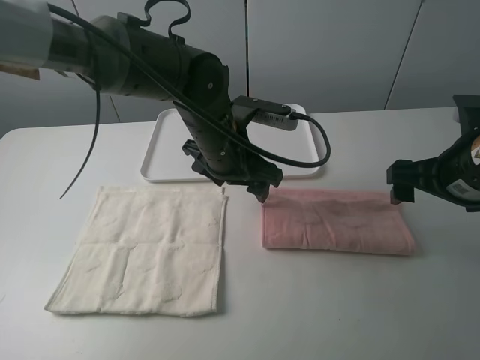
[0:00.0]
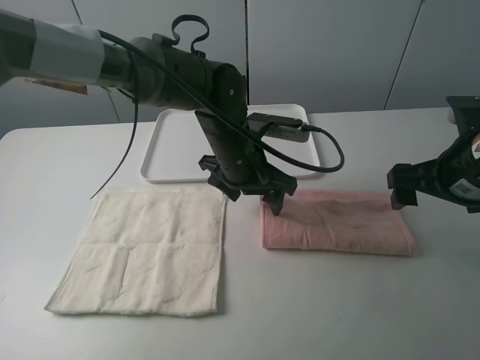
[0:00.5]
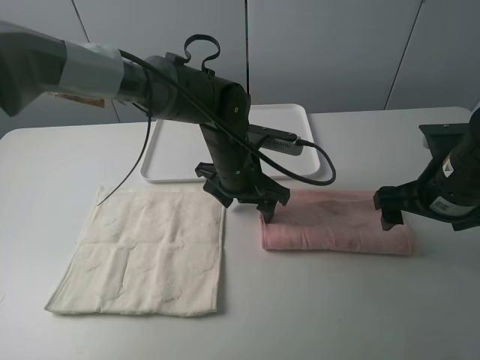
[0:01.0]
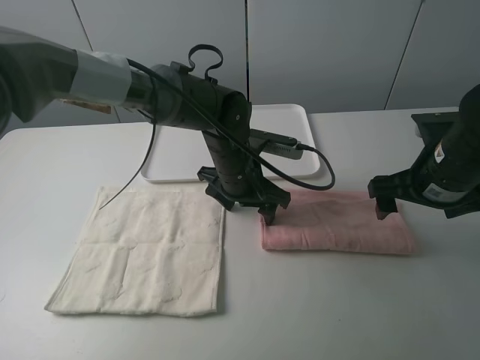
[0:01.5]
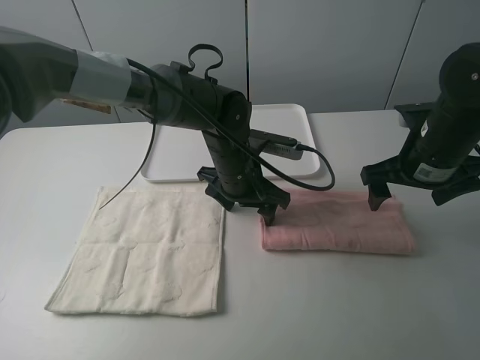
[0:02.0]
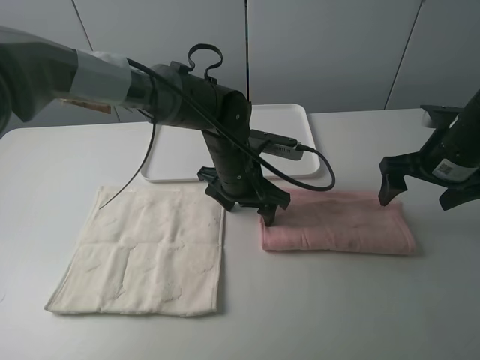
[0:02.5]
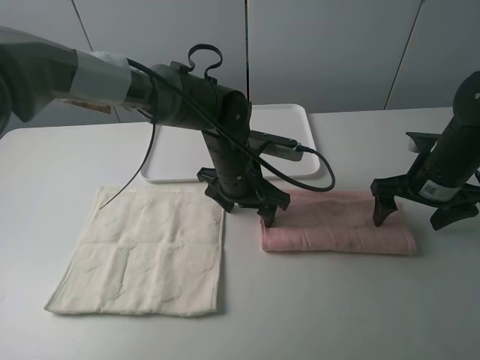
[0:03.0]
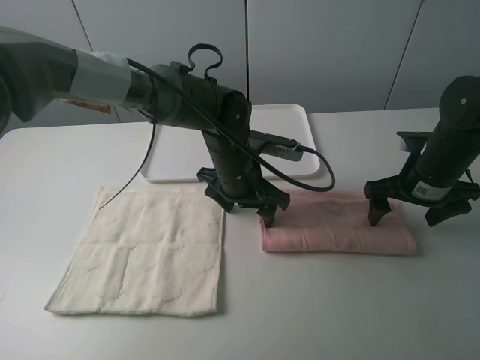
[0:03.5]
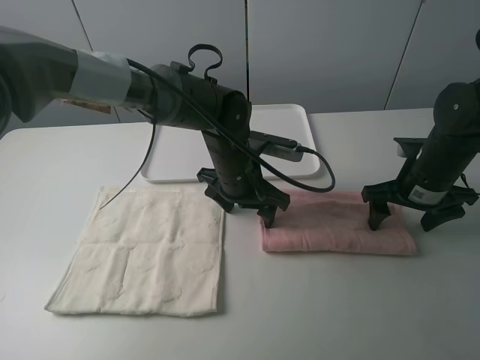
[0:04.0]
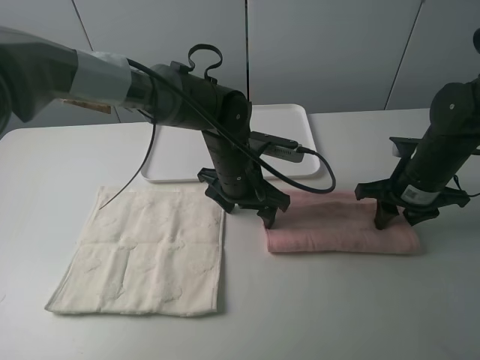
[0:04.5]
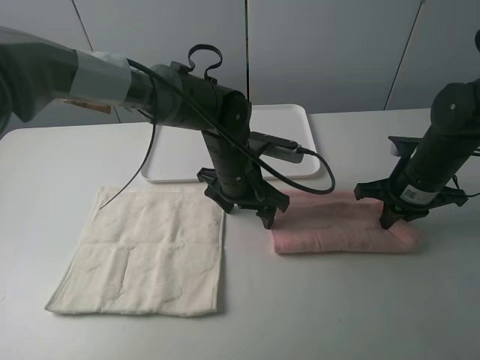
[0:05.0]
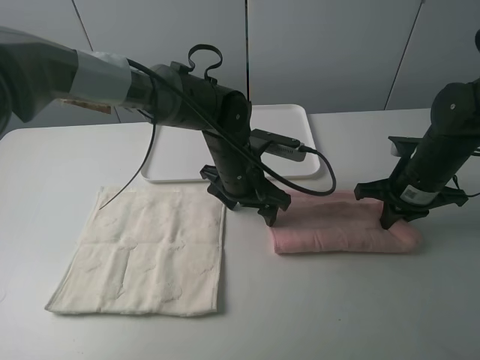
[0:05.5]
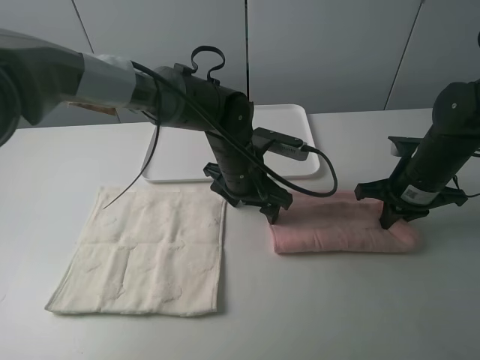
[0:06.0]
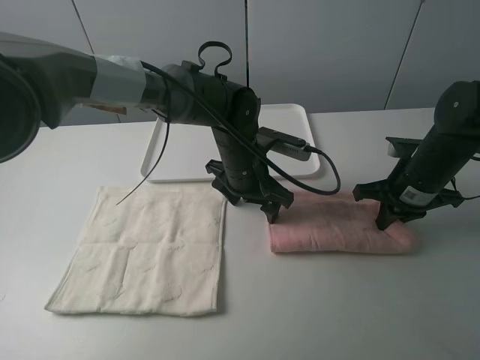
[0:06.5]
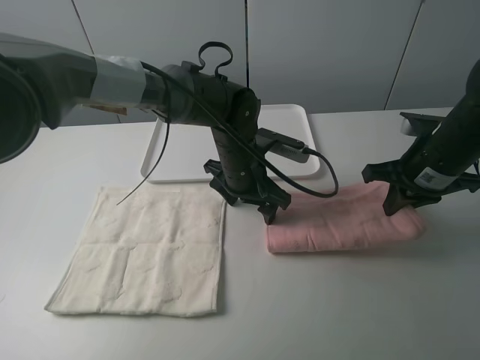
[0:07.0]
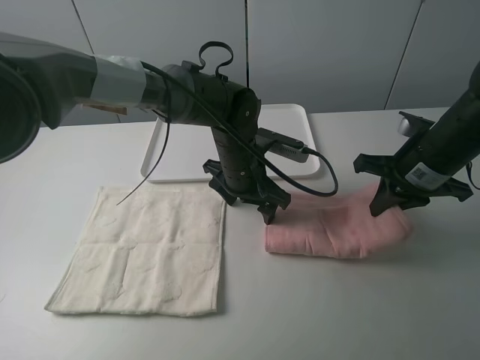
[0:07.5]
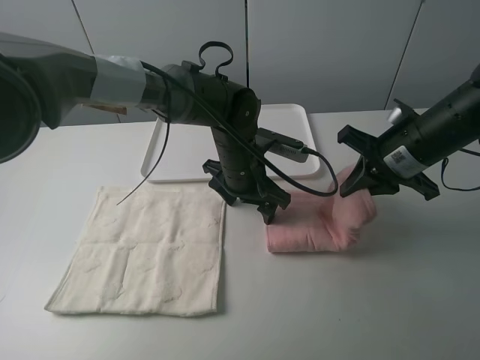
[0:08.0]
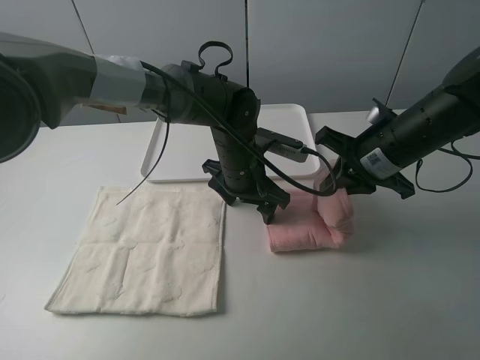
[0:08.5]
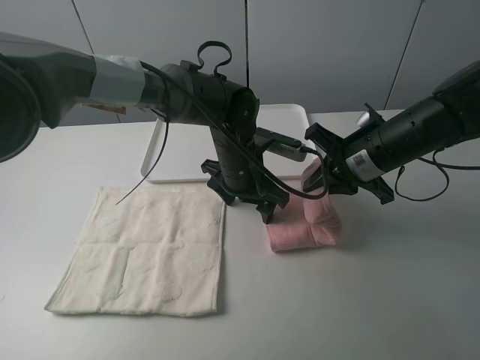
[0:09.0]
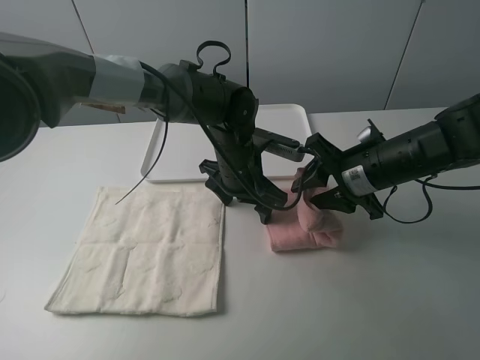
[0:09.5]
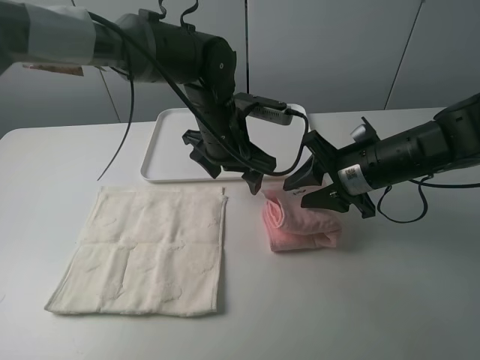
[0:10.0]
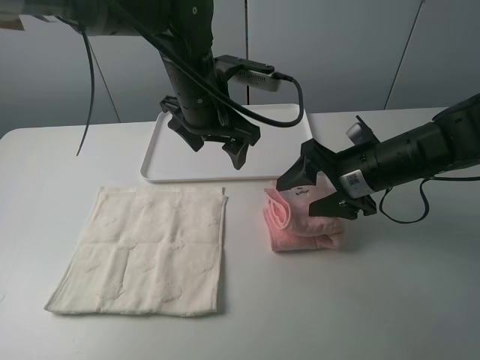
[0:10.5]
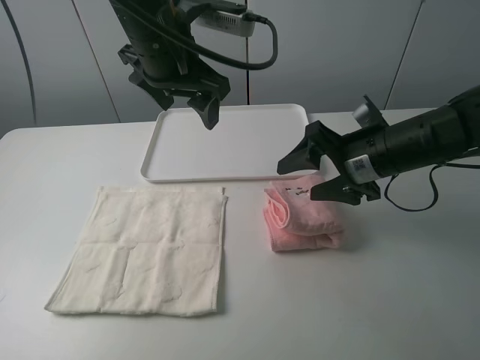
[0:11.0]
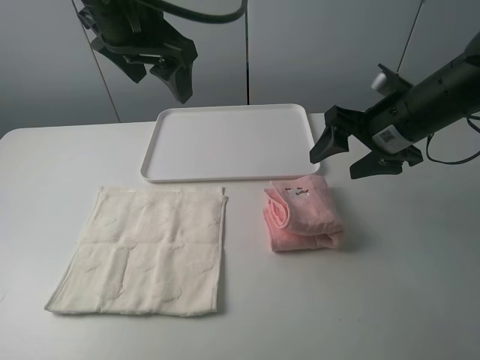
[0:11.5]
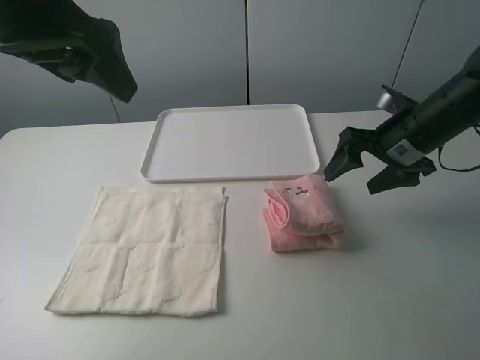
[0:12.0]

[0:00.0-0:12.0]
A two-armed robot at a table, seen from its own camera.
Task of the whole recording: fold one of the towels by two grippers and place it on the tray,then fold another towel by two grippers and place it on the folded towel.
Step, 0:00.0 to 0:01.0: Press the pink towel with the left gripper.
Step, 0:01.5 to 0:04.5: Grasp the pink towel with the right gripper.
Step, 0:05.0 to 0:10.0: Fold the pink towel from right to left with right gripper.
0:00.0 to 0:02.0: The left gripper is displaced downward by about 5 cm, while the right gripper is displaced forward by approximately 5 cm.
0:02.0 to 0:04.0: The right gripper goes roughly 5 cm downward.
0:04.0 to 0:06.0: The right gripper closes.
0:06.0 to 0:08.0: The right gripper shifts approximately 5 cm upward.
0:08.0 to 0:10.0: The left gripper heads upward, covering approximately 5 cm. The right gripper changes place by about 5 cm, and opens up.
0:10.0 to 0:12.0: The right gripper heads to the right, covering some 5 cm, and opens; the left gripper heads upward, to the left and backward, covering some 30 cm.

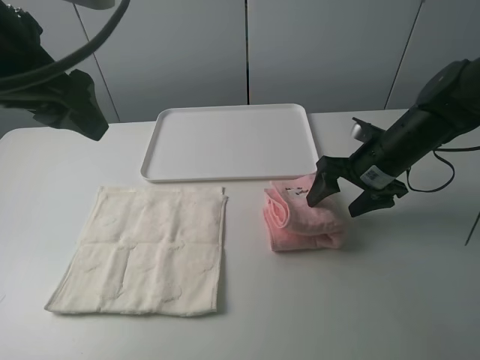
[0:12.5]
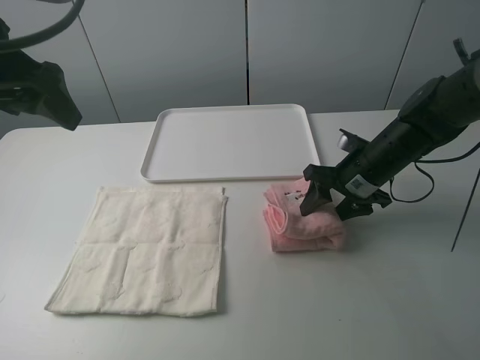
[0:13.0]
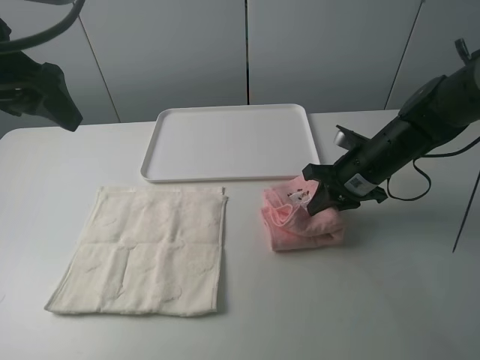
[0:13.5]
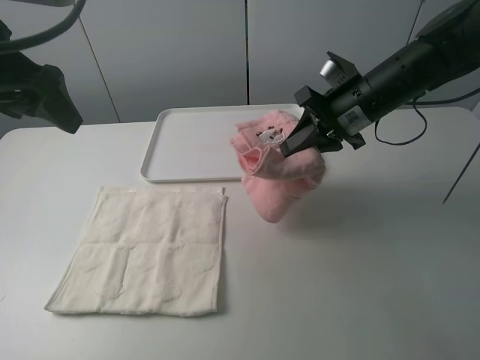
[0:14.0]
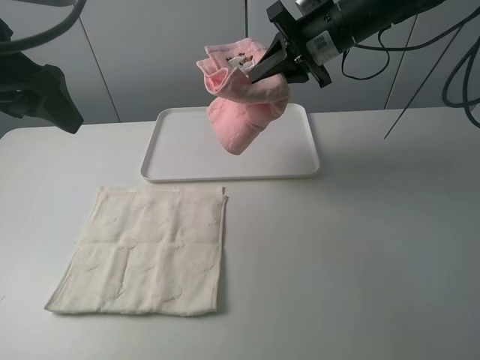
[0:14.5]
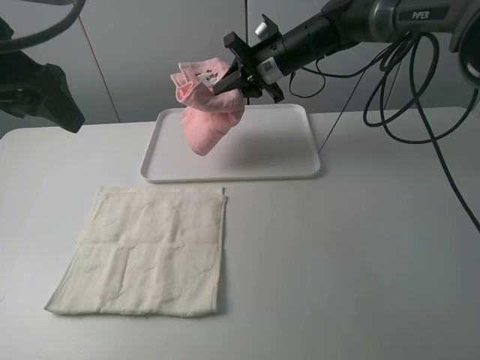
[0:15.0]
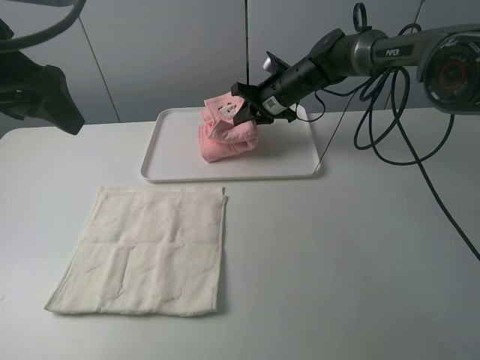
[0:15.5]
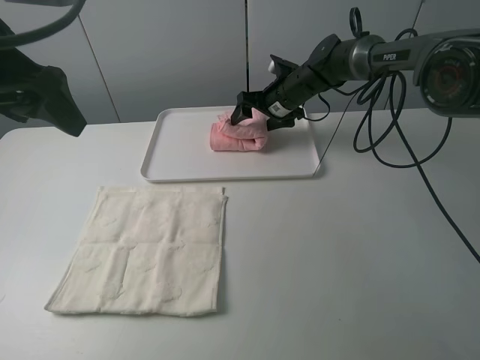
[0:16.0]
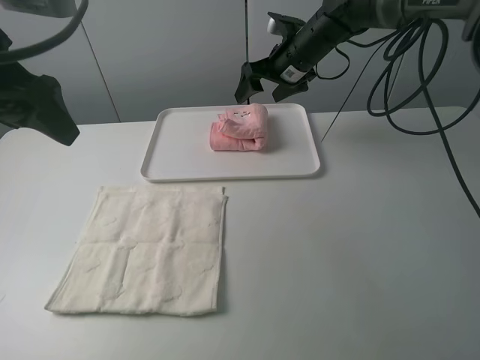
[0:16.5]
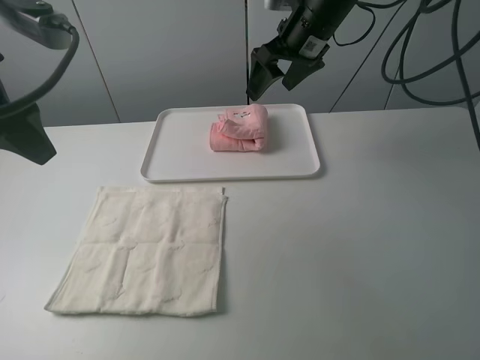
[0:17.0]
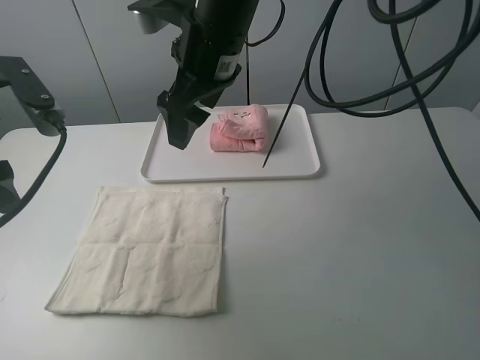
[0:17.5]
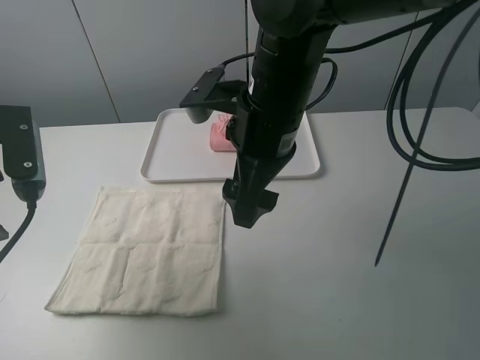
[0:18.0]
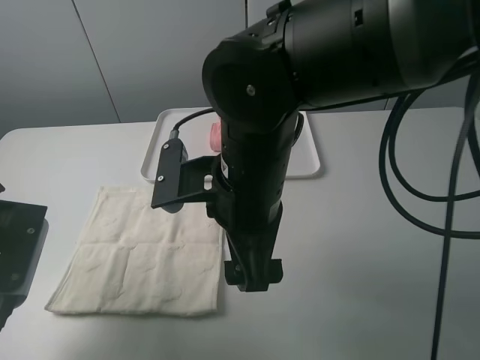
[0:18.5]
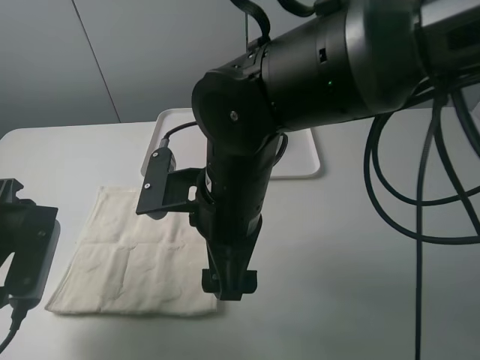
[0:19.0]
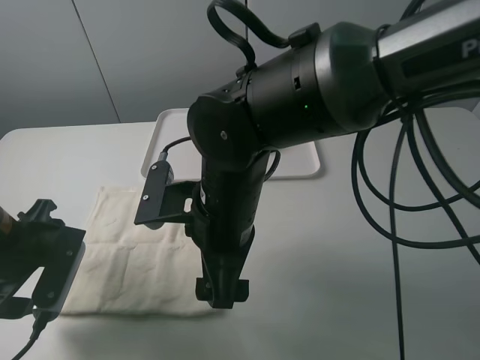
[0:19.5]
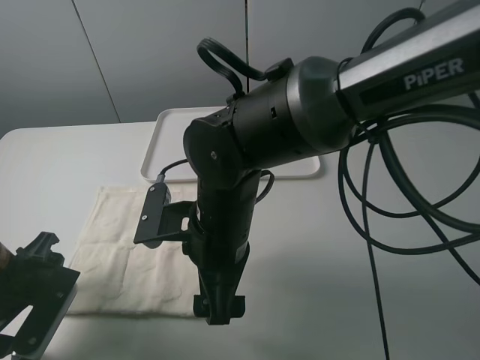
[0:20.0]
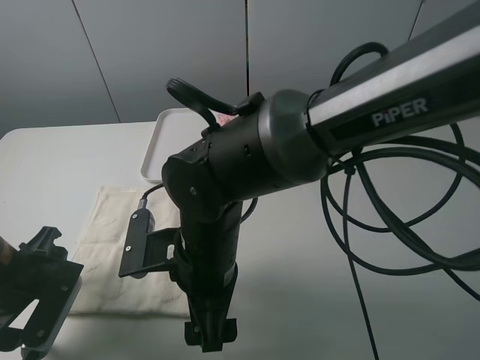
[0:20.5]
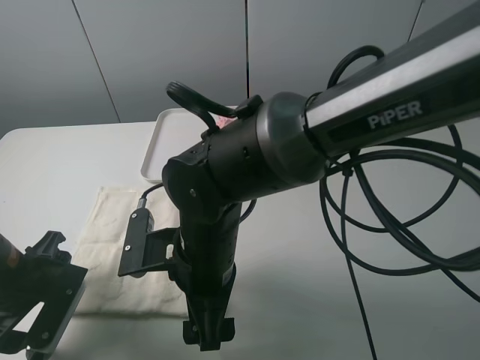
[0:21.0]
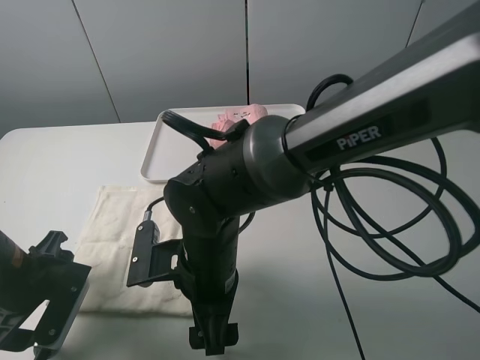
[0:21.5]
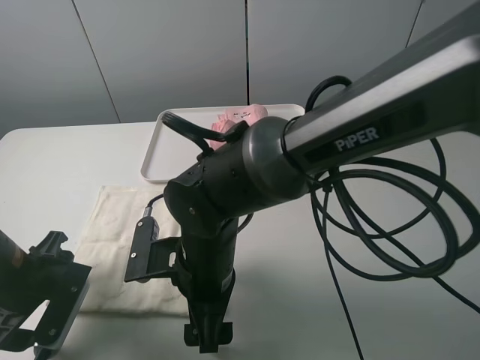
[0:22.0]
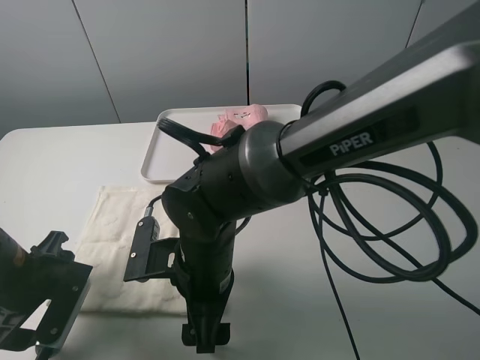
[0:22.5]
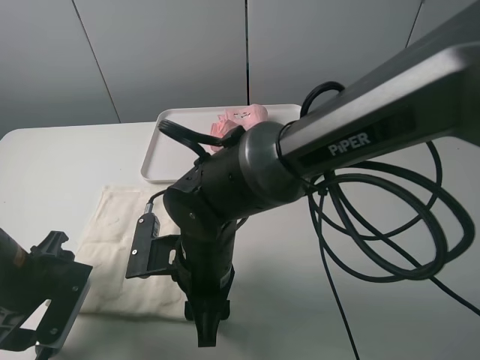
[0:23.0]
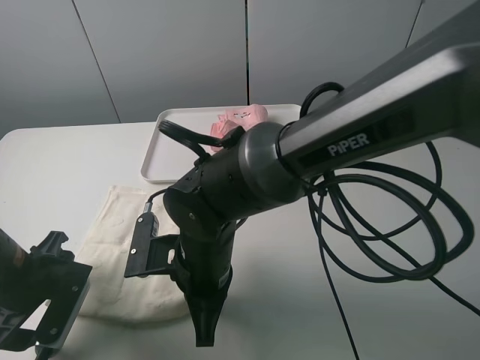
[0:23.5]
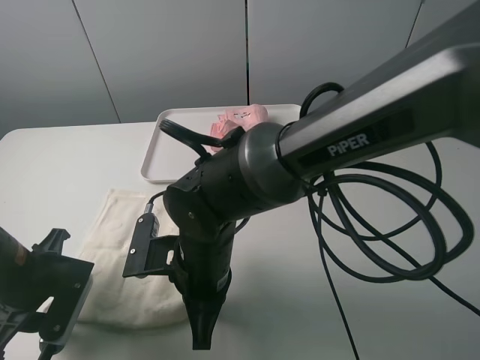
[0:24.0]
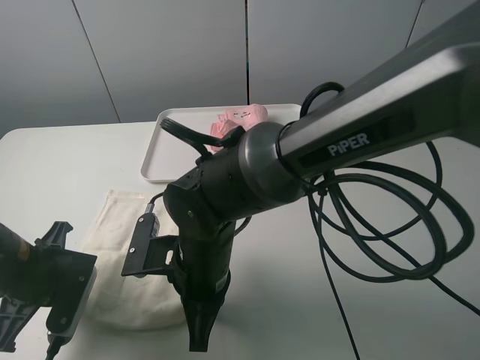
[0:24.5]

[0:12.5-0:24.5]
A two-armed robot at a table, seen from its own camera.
Task of the whole recording: fold one of the towels by two grippers and place it on the tray,then fold another towel by two grippers and place it on the folded towel.
Step, 0:13.5 to 0:16.0: Move the pink towel to the plate with the right gripper.
Step, 0:16.5 to 0:23.5: Grasp the white towel with the left gripper.
0:12.5 to 0:14.5: The right gripper travels upward, forward and to the left by roughly 20 cm, and closes.
0:14.5 to 0:16.5: The right gripper heads forward, covering approximately 5 cm, travels downward and back again, approximately 15 cm each way, and opens up.
0:16.5 to 0:18.5: The right gripper heads backward, covering about 30 cm. Meanwhile the left gripper heads downward and backward, covering approximately 15 cm.
0:18.5 to 0:20.5: The grippers both shift downward by about 10 cm.
0:22.5 to 0:24.5: The left gripper closes. The right gripper closes its fingers.

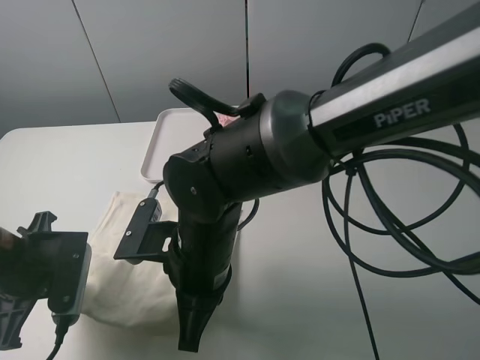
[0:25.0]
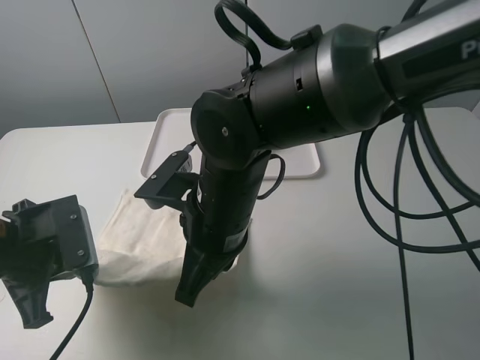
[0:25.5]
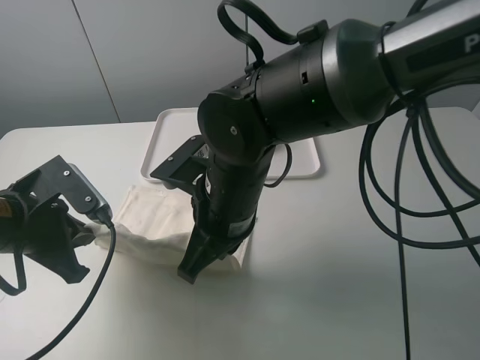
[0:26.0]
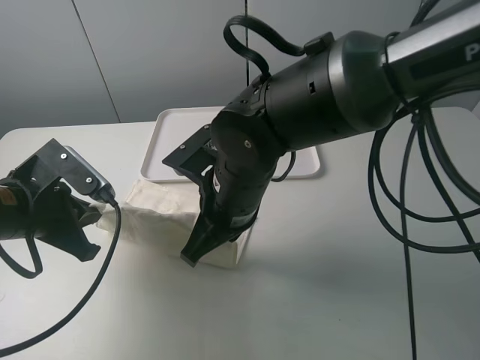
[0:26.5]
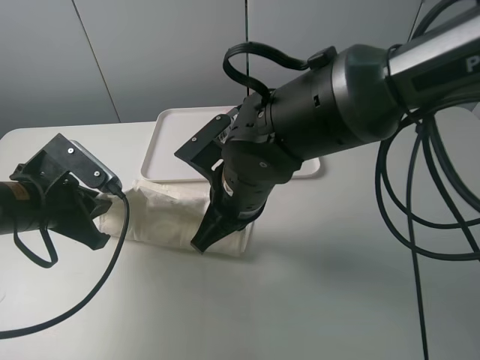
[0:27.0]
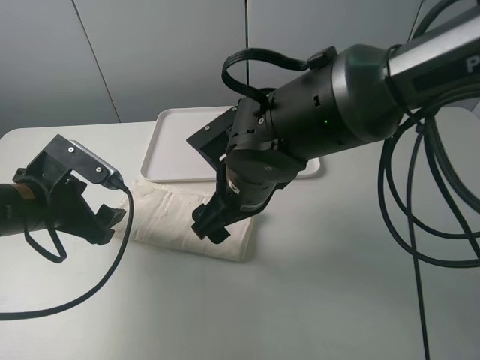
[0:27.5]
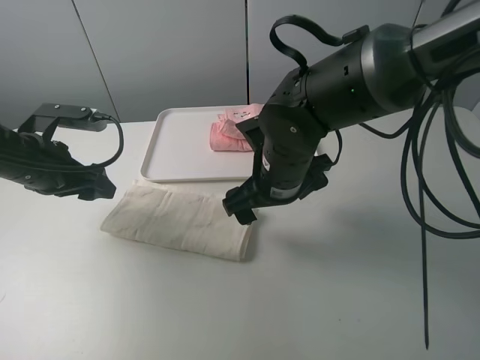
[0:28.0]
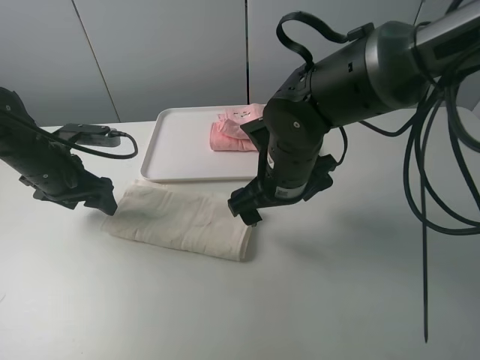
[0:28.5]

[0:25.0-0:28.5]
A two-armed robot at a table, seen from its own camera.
Task of the whole recording: fold one of the towels by two grippers and place it on the tray,then fold another towel by two grippers and place it on the folded towel.
Step, 0:25.0 to 0:27.0: Fold the white towel upwards with the left gripper.
0:25.0 to 0:27.0: The right gripper is displaced forward by roughly 5 cm. The left gripper ends up roughly 5 cm from where it was.
0:27.0 to 0:28.5: The left gripper goes some 10 cm forward, and opens. The right gripper heads to the right, covering some 5 cm, and opens.
